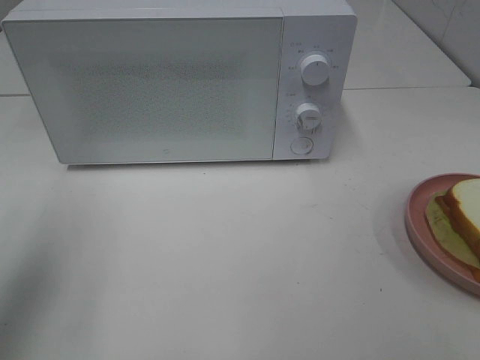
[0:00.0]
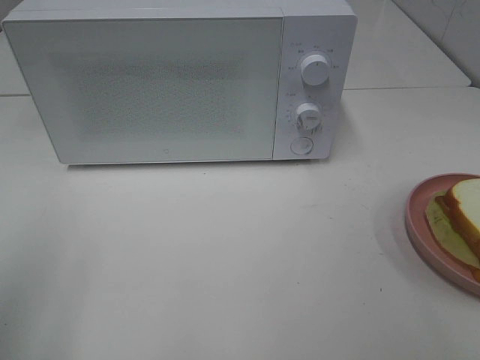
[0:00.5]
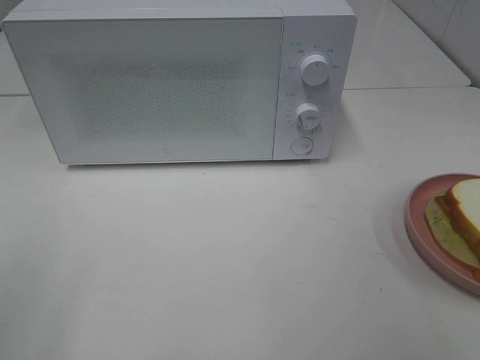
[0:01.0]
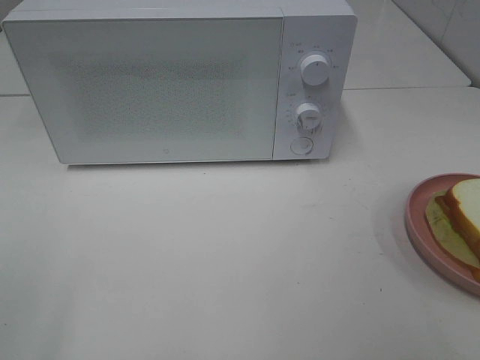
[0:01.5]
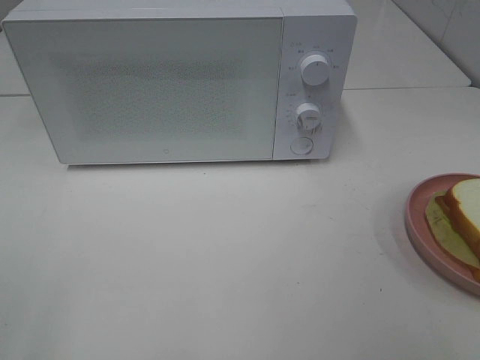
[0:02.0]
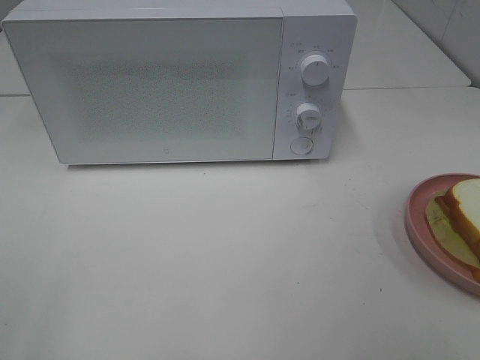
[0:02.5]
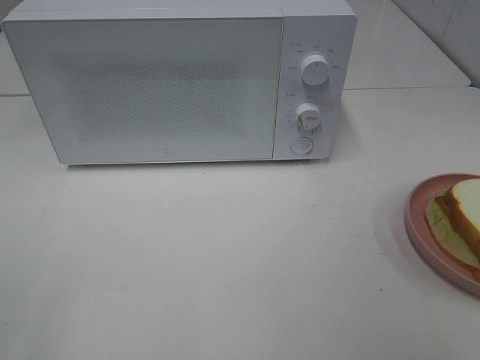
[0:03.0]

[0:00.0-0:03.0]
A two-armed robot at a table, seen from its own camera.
Task of the whole recording: Heat Sandwich.
0:00.0 to 0:01.5: The left gripper goes some 15 cm backward.
